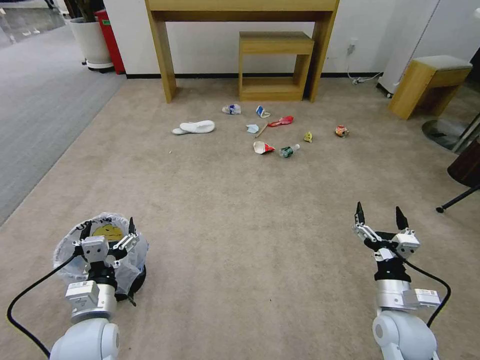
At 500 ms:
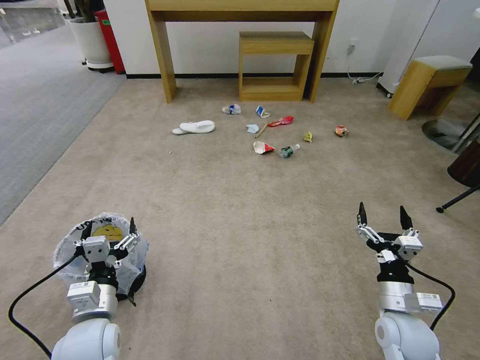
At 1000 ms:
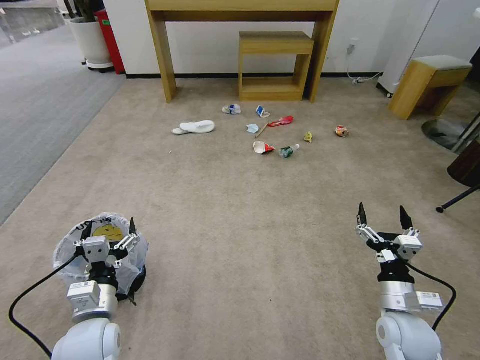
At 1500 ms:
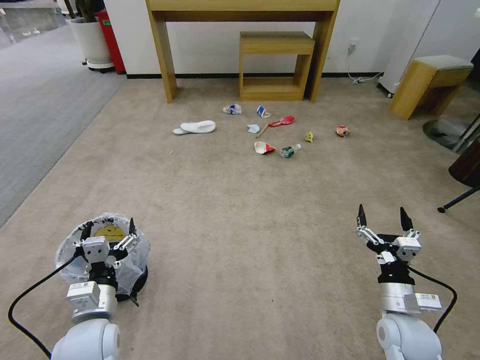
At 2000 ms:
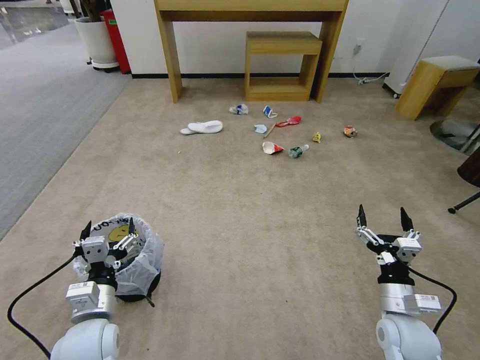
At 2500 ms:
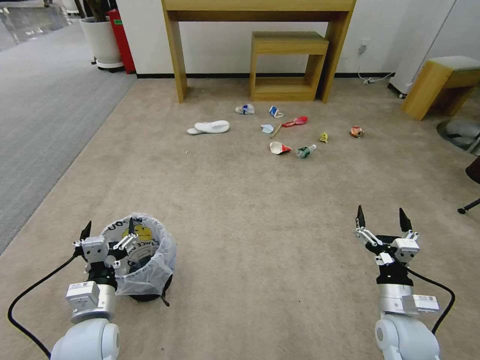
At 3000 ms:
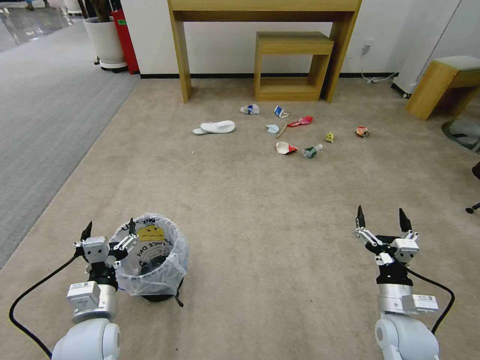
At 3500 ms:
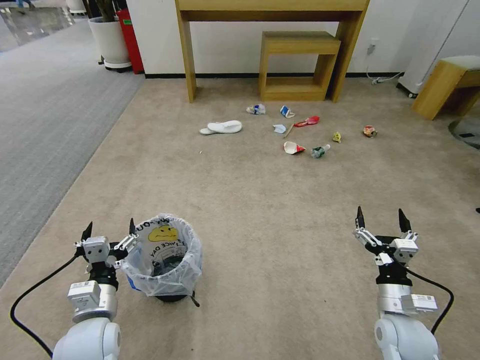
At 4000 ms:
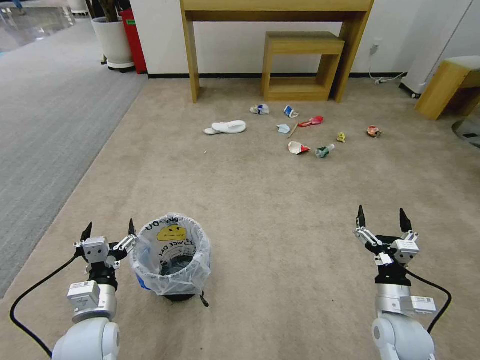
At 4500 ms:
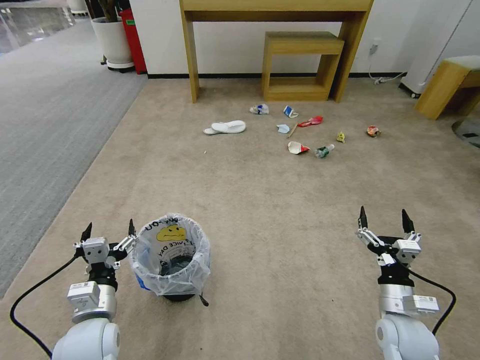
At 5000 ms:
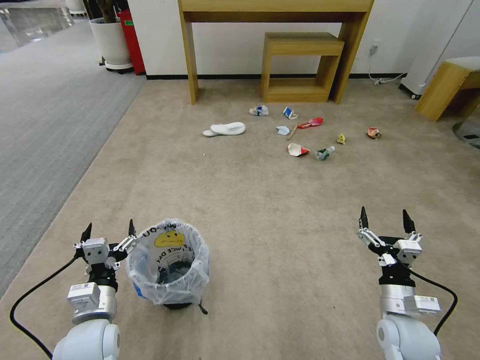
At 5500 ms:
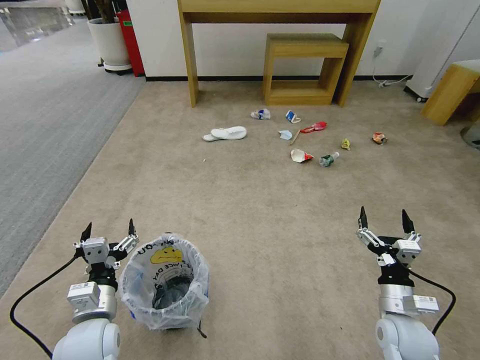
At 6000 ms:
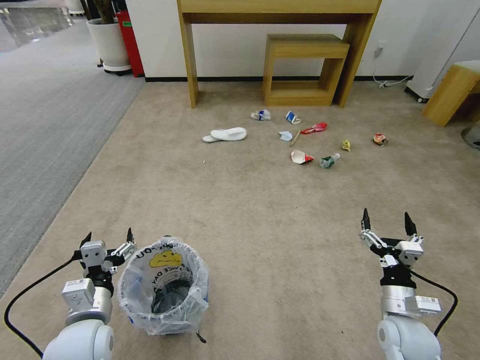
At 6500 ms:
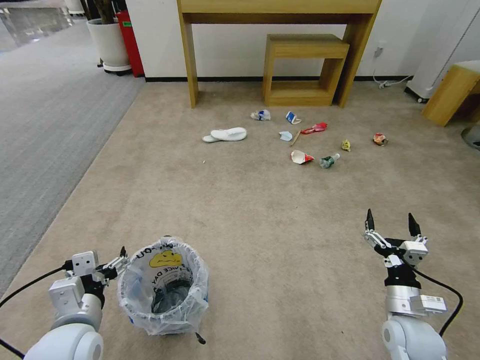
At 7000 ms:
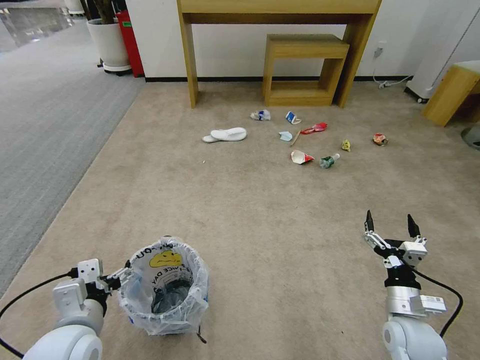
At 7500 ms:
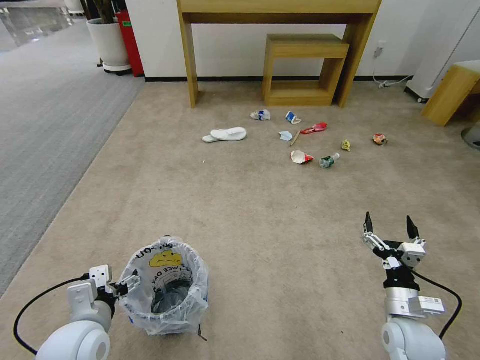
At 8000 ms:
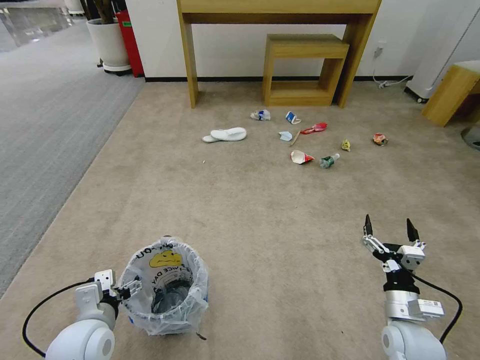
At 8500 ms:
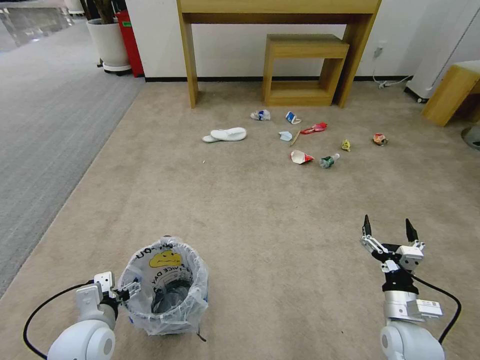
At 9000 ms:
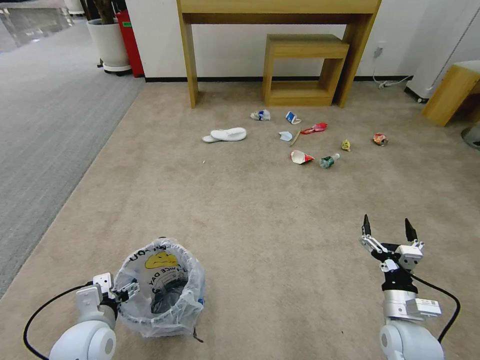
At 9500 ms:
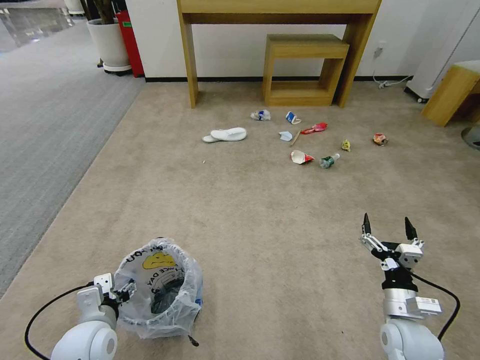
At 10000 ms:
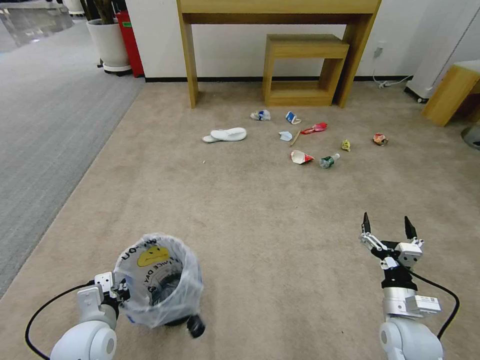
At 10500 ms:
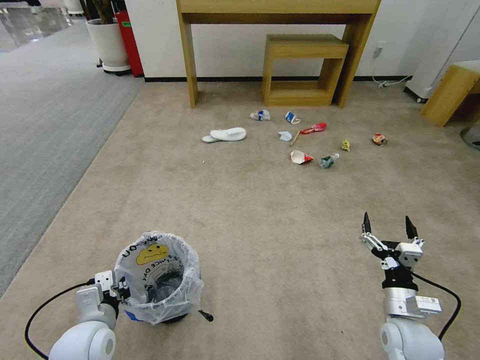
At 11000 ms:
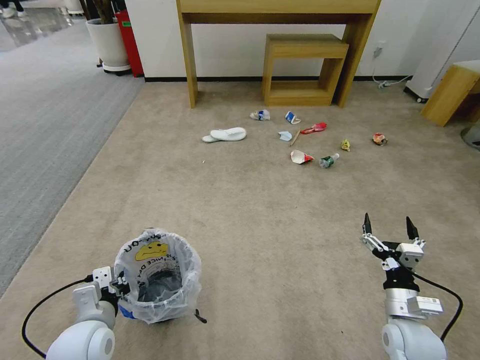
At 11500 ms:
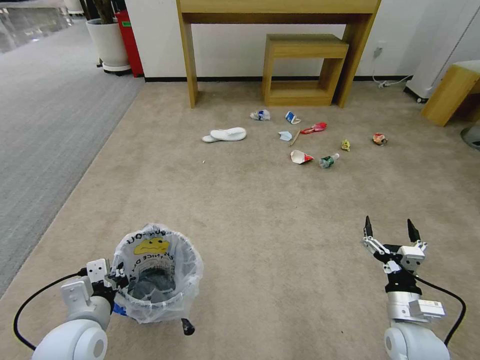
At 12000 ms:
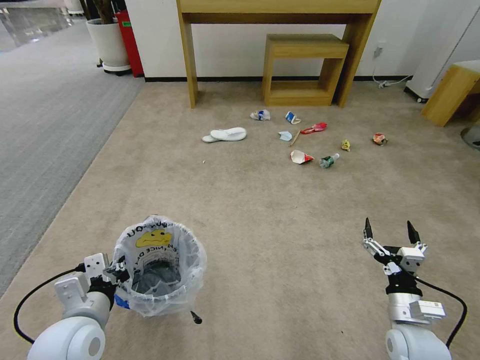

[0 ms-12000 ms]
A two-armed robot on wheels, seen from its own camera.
Task of the whole recording: Pick up the trash bin and place the garbage on the floor into it.
4000 ms to 6000 ms: The grippers make only small movements.
8000 ms to 10000 ms: The left gripper closes its fingers.
10000 ms to 12000 ms: The left gripper travels upward by roughly 5 cm.

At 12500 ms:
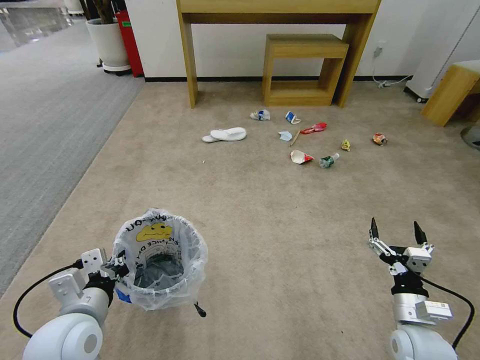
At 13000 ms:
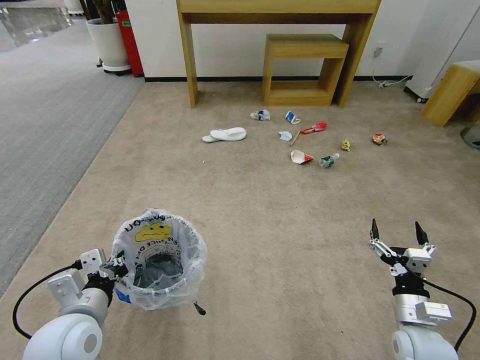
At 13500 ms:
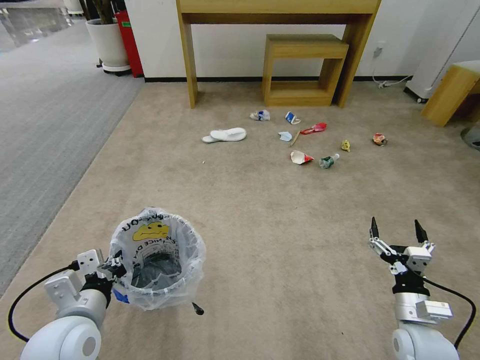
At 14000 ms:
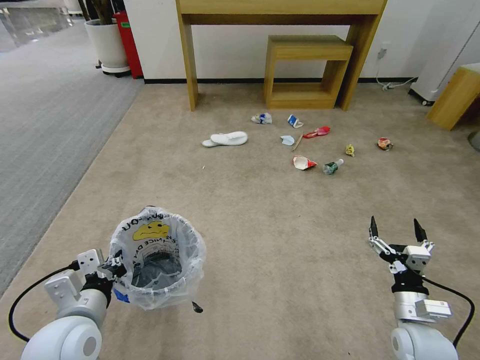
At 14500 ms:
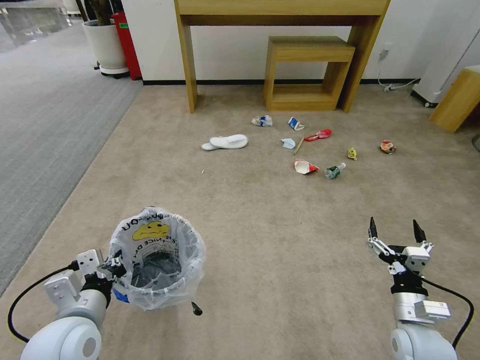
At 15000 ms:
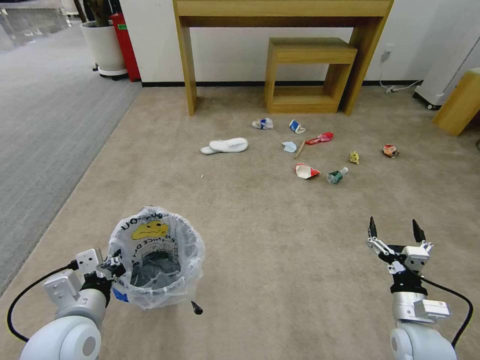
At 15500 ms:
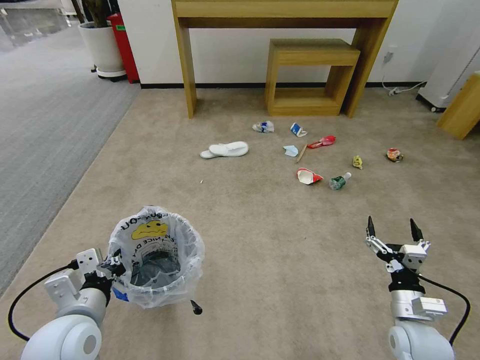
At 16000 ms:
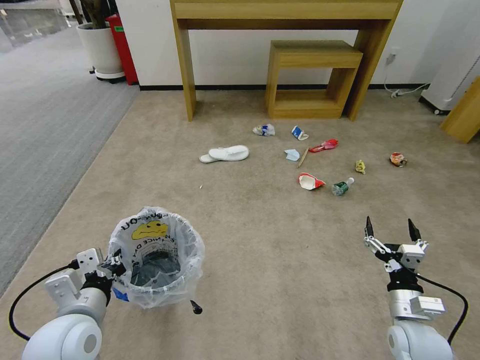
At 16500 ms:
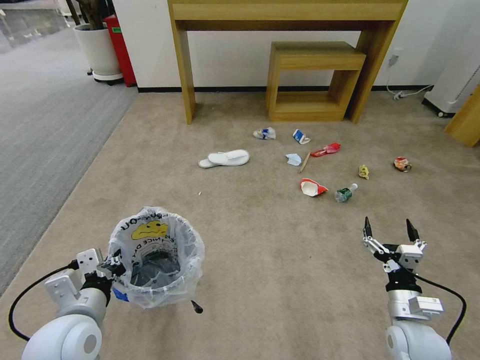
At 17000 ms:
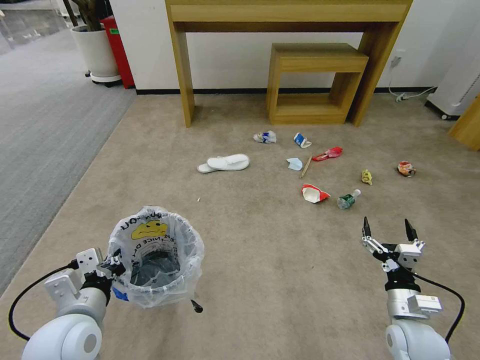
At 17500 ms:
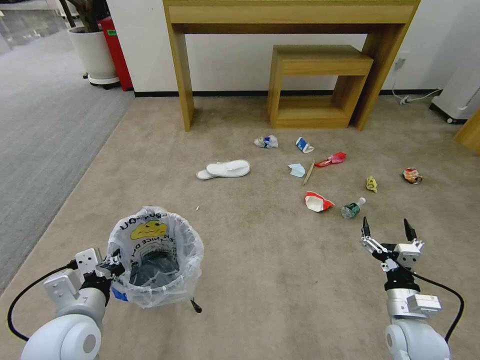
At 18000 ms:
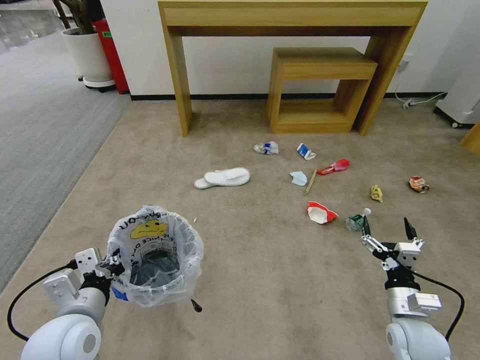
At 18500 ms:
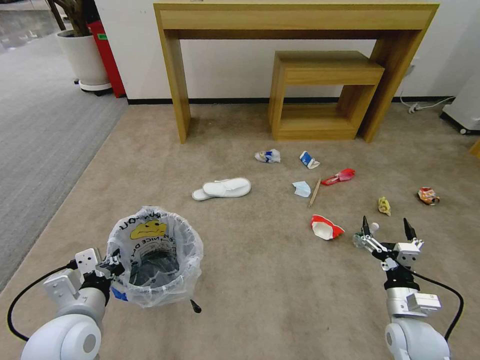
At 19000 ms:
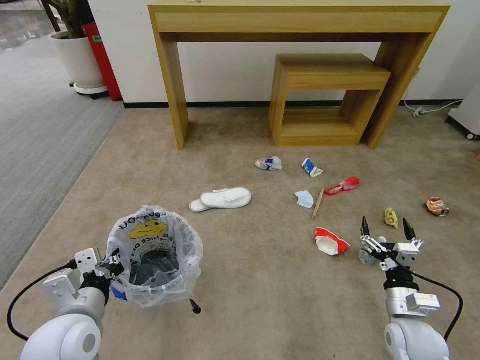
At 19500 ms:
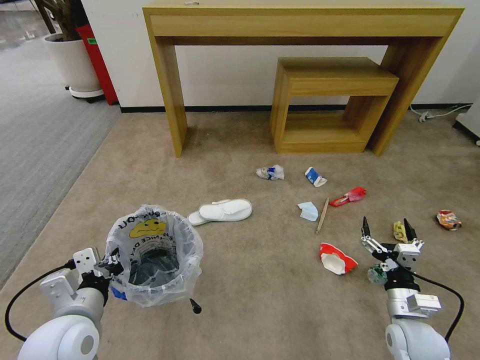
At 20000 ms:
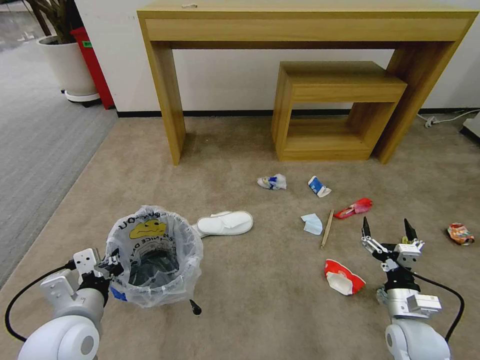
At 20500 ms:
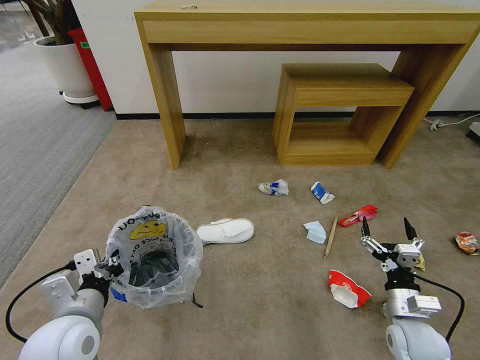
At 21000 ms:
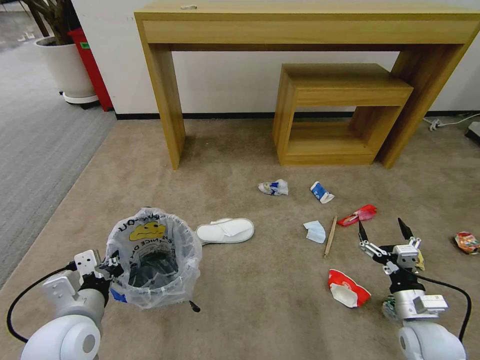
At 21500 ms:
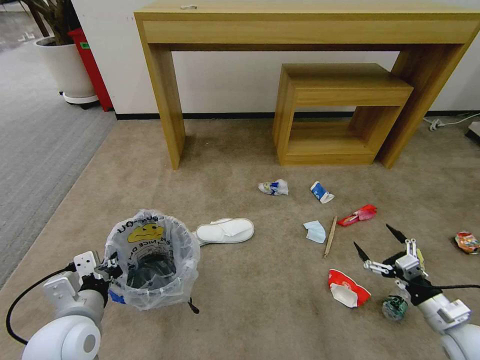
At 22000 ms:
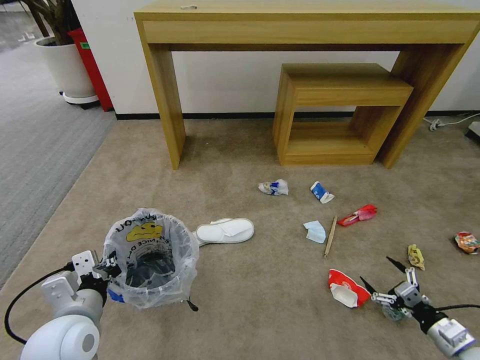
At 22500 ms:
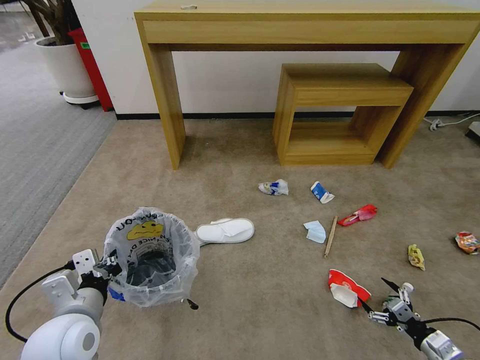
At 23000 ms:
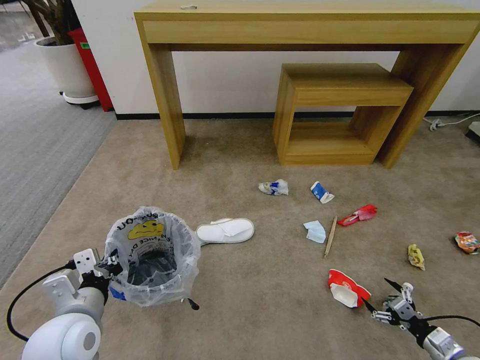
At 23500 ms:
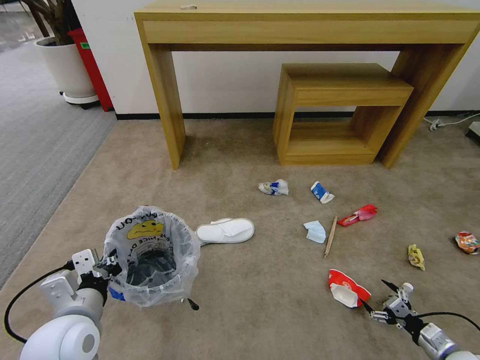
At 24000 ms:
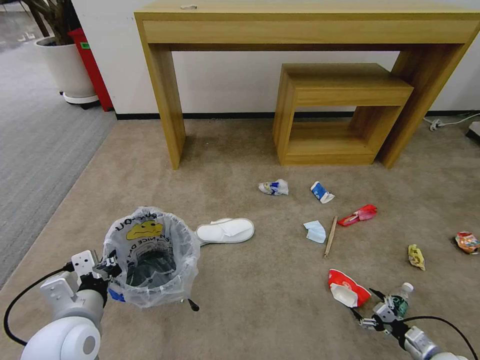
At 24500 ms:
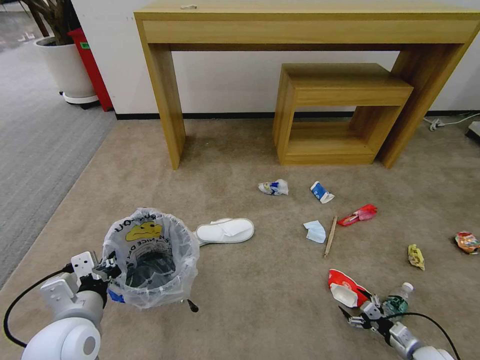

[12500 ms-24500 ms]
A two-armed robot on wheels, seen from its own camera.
Task of the whole recording: Pick up the trash bin and place the garbage on the floor into it.
12500 ms to 16500 ms: Both grippers stay put.
20500 ms to 22500 ms: The right gripper is displaced to the right, downward and backward by some 20 cm.
22500 ms to 24500 ms: The right gripper heads downward, covering some 10 cm.

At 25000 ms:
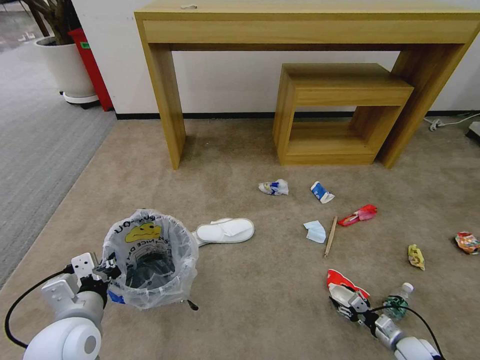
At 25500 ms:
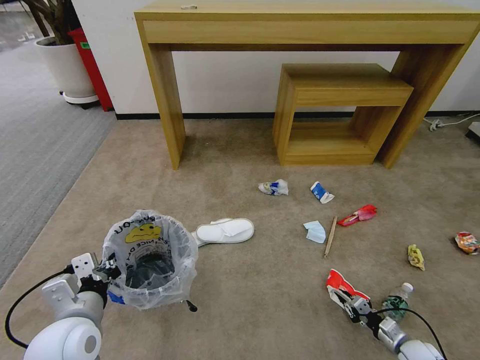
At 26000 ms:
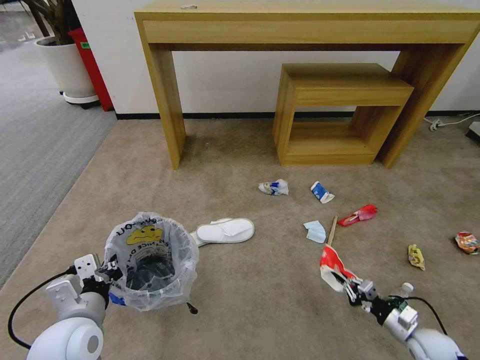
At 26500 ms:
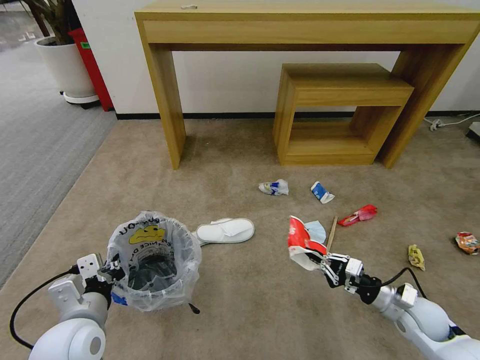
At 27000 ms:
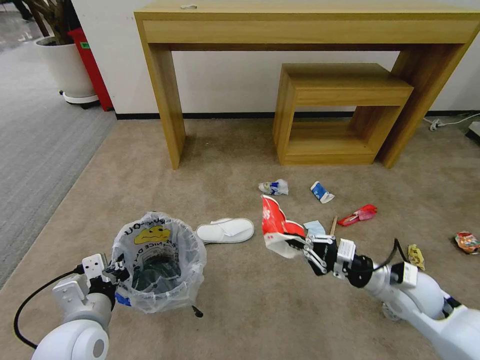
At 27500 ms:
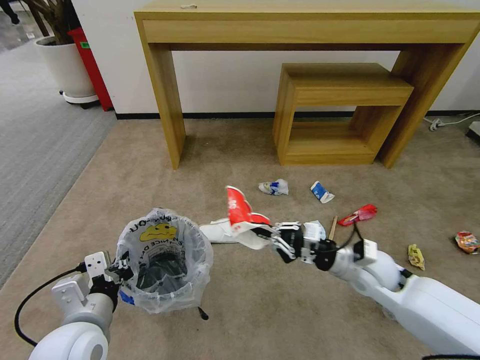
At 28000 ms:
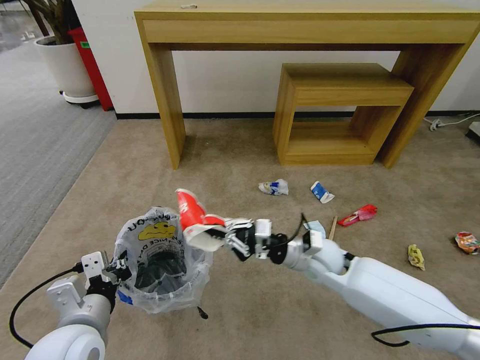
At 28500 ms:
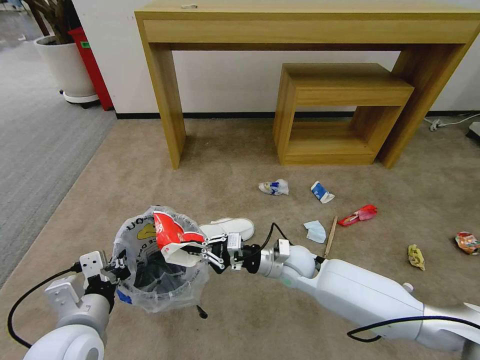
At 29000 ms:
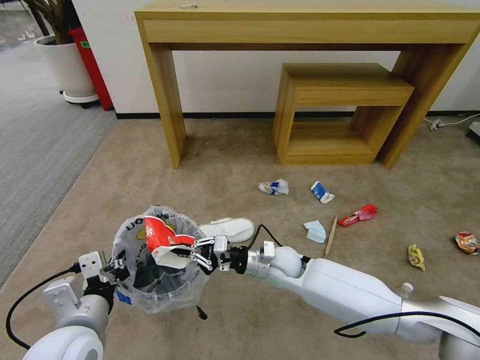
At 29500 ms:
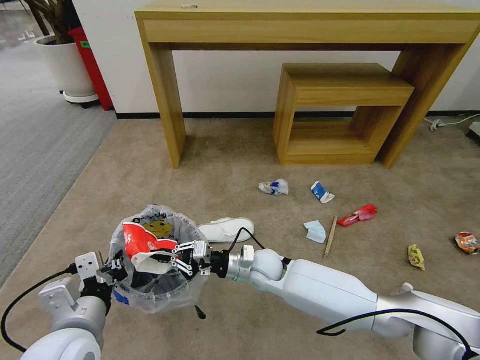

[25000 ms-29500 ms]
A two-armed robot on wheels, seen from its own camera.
Task of the whole recording: Pick up the trash bin and place the garbage on the floor into it.
25000 ms to 27000 ms: The right gripper is displaced upward and to the left by some 30 cm, and closes its fingers.
27000 ms to 29500 ms: The right gripper is displaced to the left by roughly 30 cm.
